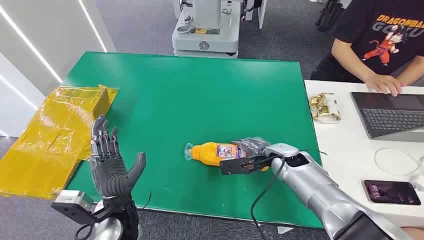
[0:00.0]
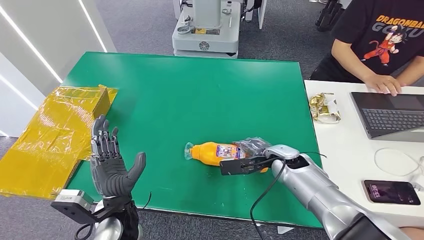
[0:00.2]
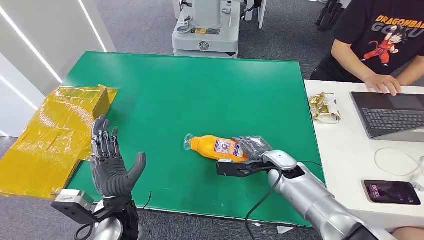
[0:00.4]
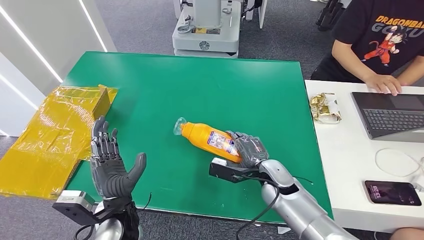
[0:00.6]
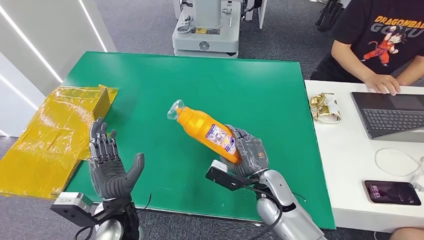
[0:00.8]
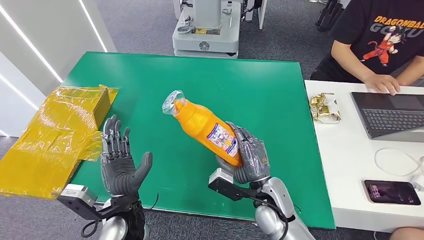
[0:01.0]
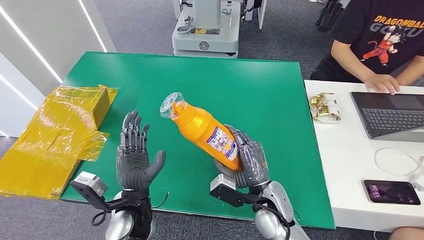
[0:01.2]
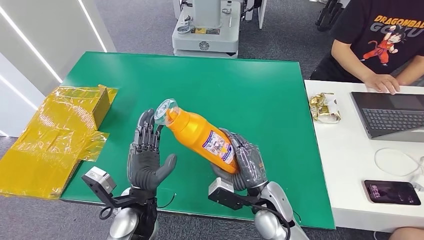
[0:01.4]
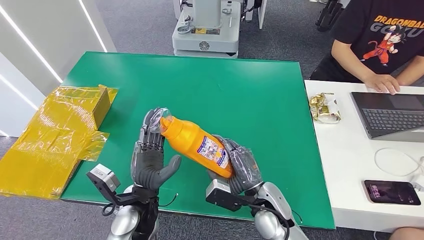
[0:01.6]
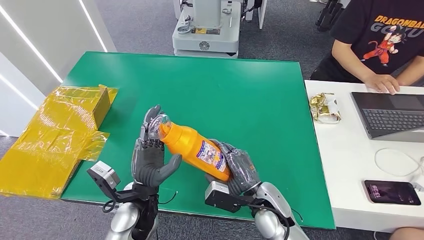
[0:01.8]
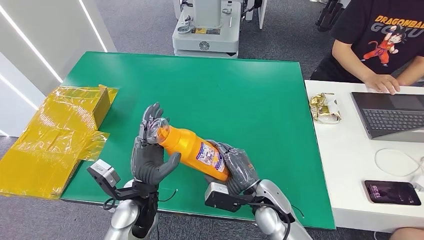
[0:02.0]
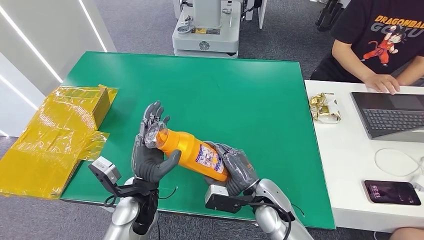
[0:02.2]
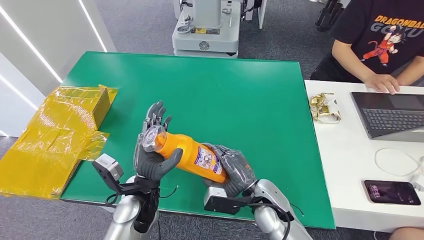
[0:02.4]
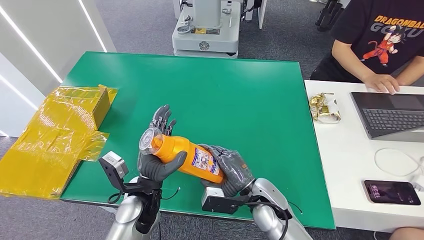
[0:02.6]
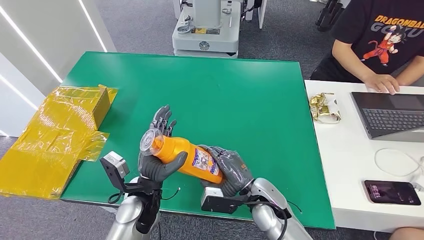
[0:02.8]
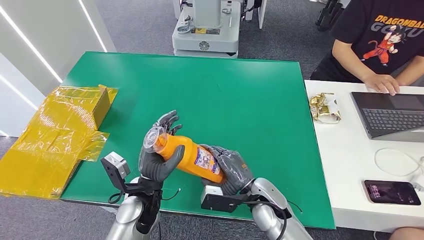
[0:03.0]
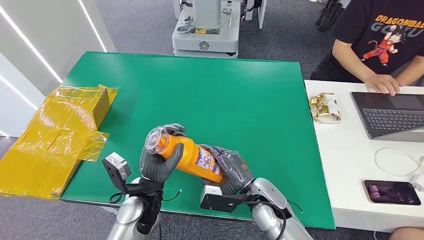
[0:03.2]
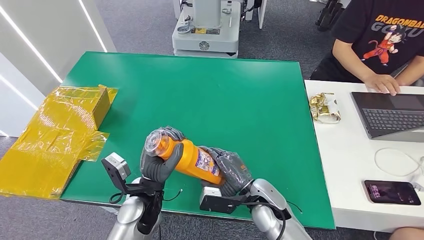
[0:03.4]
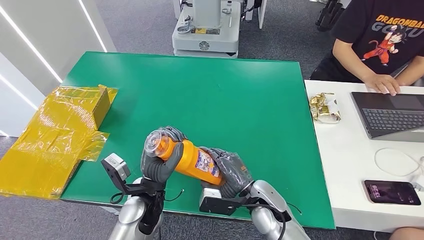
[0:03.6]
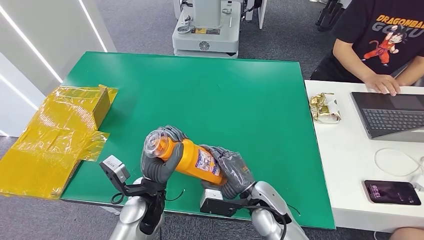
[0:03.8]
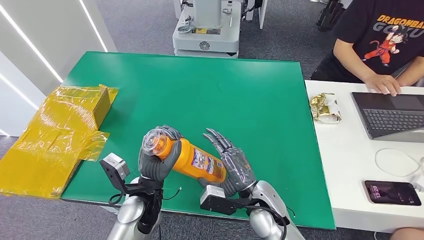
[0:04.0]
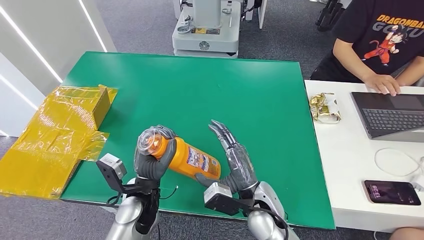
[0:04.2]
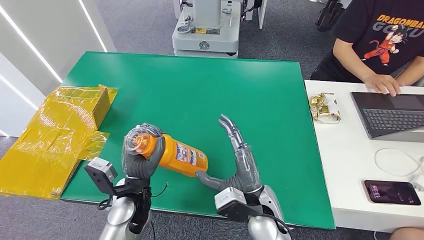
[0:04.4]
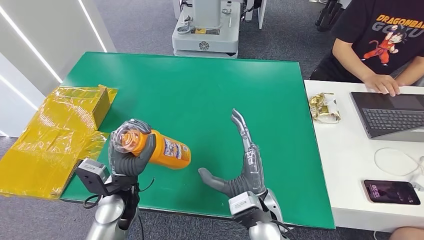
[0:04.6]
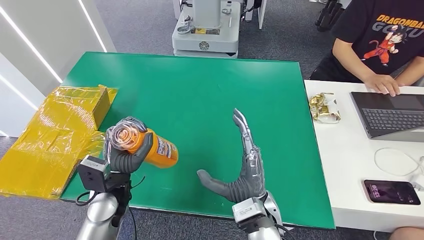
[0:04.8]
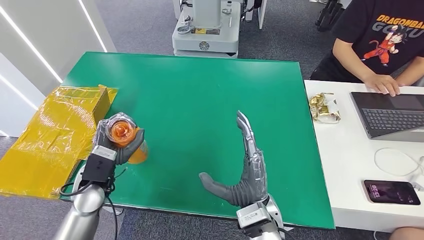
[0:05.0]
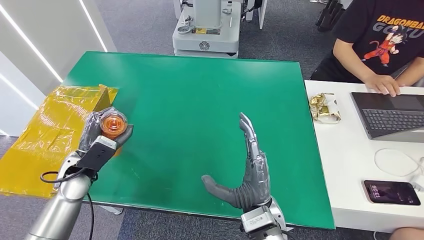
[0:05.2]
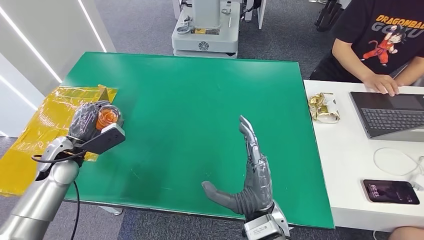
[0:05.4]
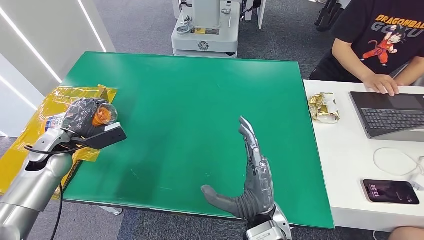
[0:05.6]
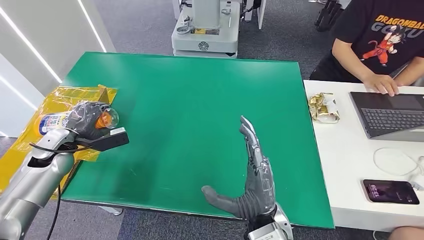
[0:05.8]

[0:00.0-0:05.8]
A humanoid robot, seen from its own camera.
Step, 0:00.0 to 0:02.8: Pick up the bottle from the table.
Step, 0:03.0 to 0:05.6: Turn the bottle to the front side.
0:02.8 to 0:04.4: The right hand moves about 5 cm.
0:04.4 to 0:05.8: The left hand shifts approximately 25 cm to the left; the right hand ends up about 5 cm from where it was.

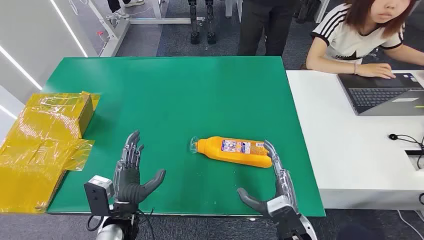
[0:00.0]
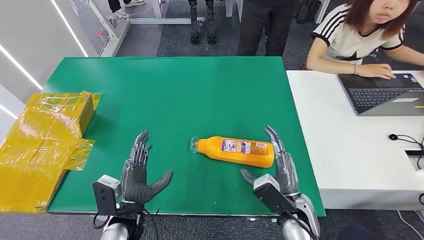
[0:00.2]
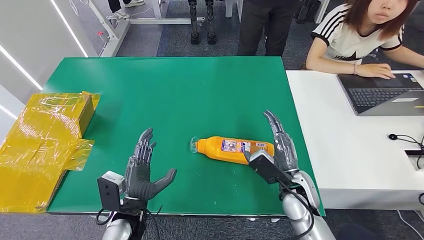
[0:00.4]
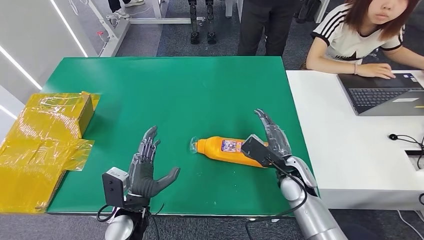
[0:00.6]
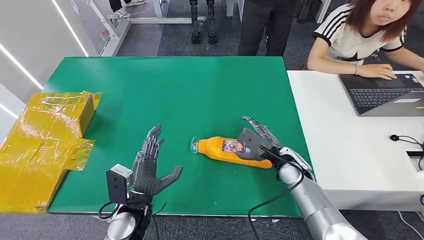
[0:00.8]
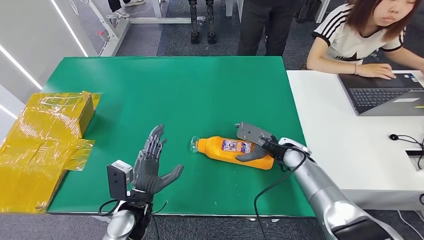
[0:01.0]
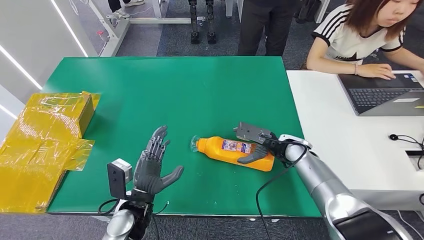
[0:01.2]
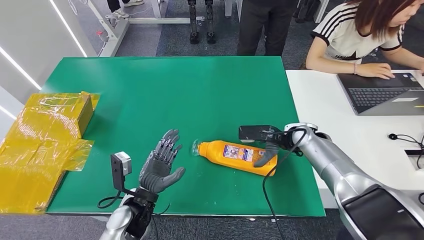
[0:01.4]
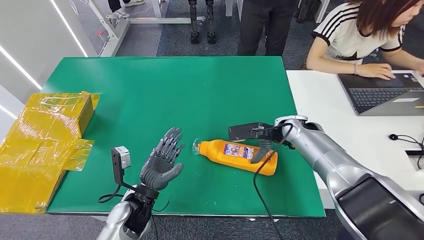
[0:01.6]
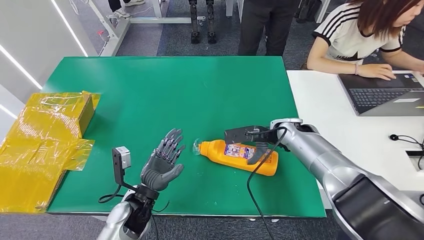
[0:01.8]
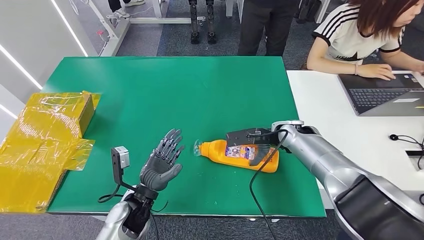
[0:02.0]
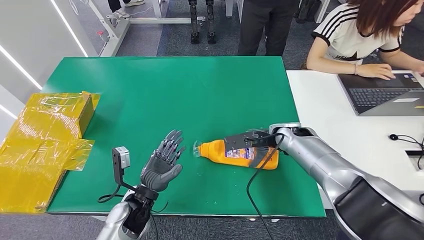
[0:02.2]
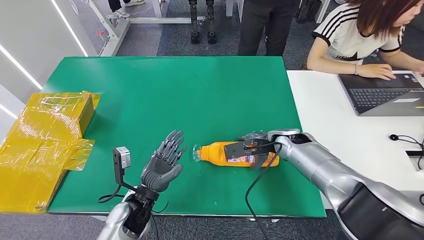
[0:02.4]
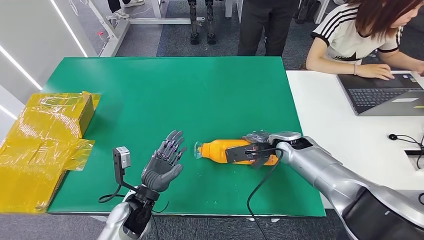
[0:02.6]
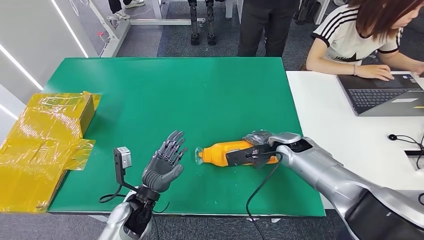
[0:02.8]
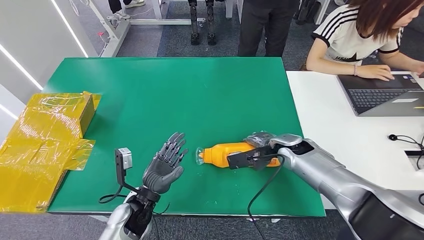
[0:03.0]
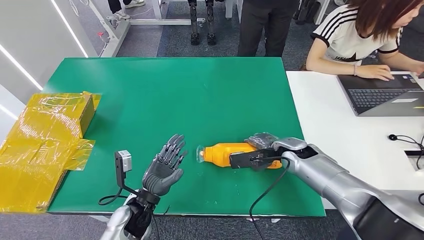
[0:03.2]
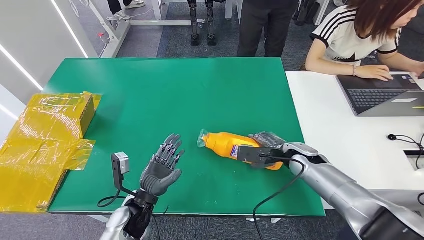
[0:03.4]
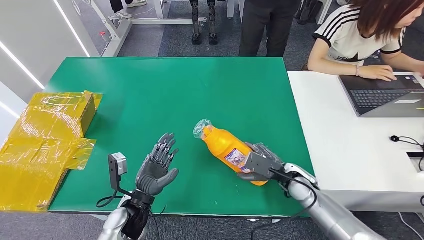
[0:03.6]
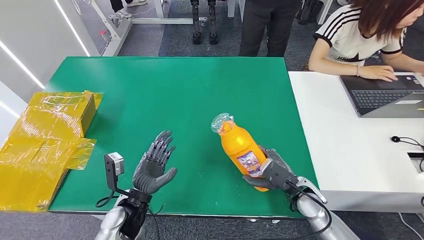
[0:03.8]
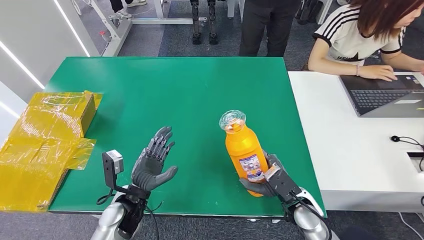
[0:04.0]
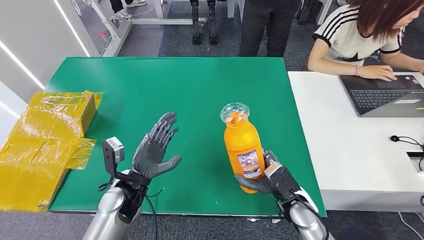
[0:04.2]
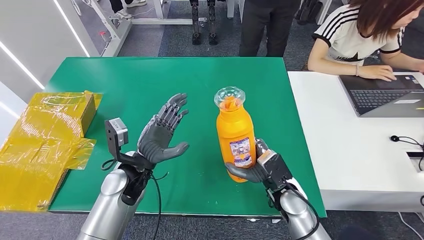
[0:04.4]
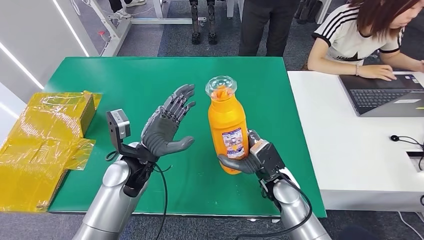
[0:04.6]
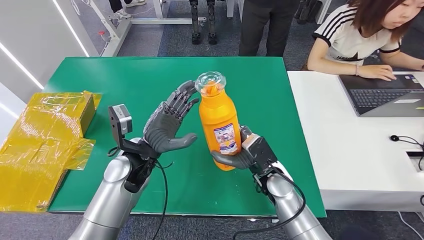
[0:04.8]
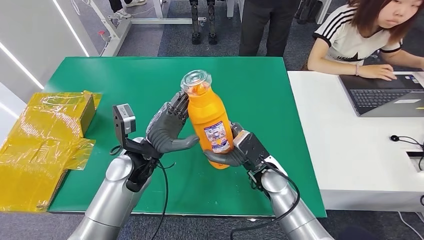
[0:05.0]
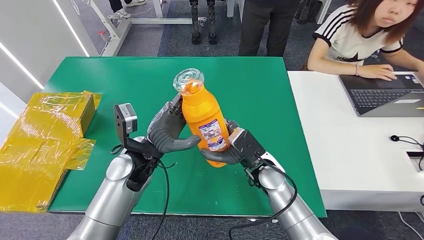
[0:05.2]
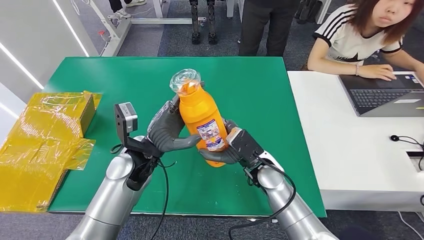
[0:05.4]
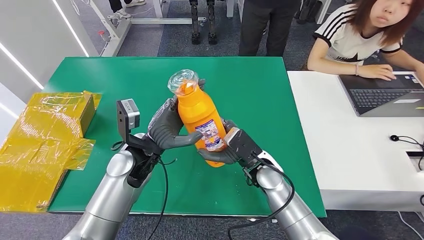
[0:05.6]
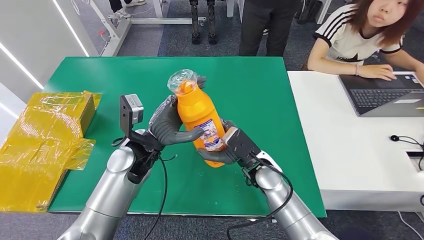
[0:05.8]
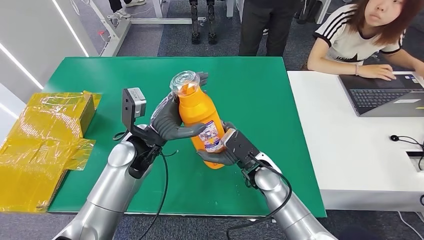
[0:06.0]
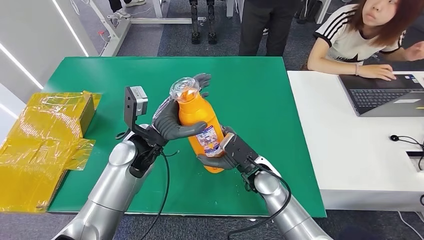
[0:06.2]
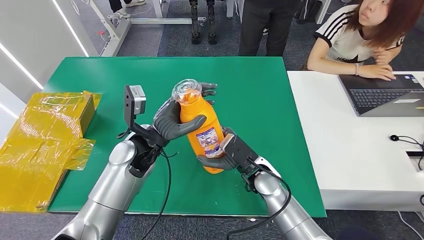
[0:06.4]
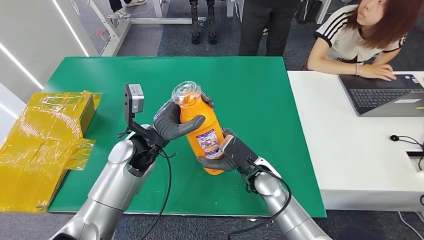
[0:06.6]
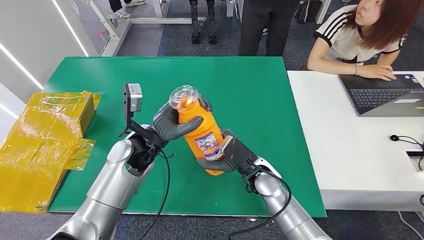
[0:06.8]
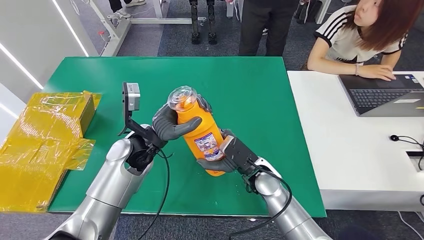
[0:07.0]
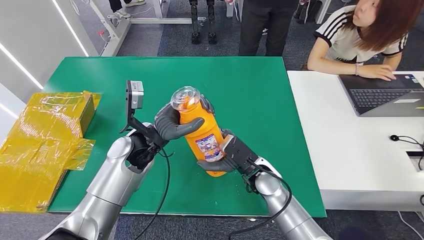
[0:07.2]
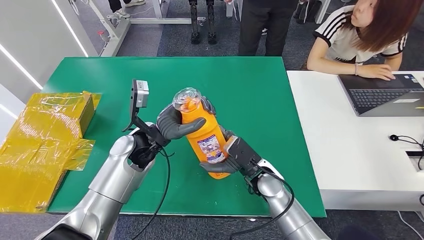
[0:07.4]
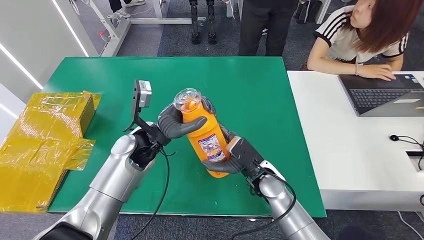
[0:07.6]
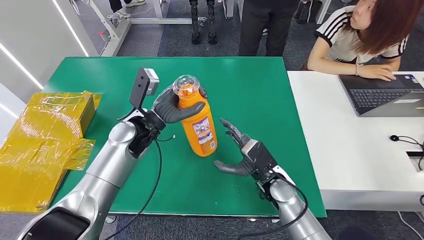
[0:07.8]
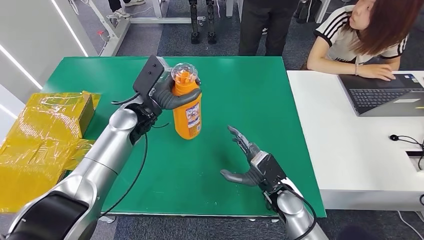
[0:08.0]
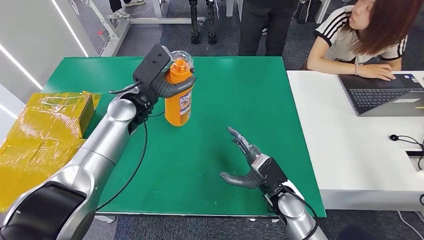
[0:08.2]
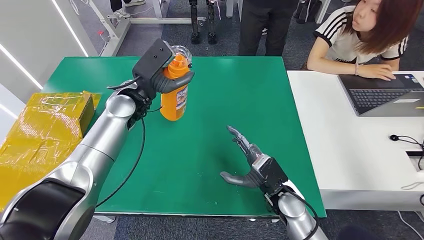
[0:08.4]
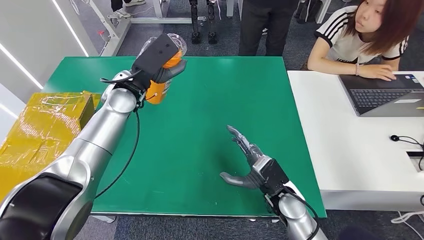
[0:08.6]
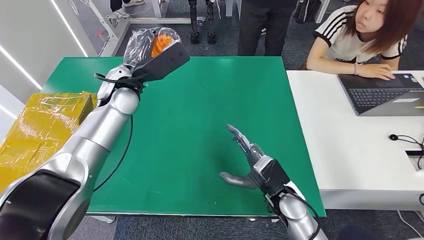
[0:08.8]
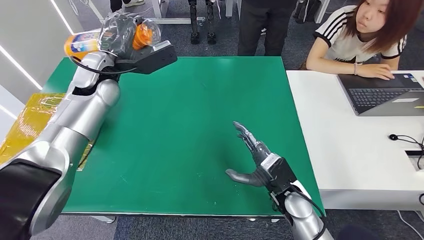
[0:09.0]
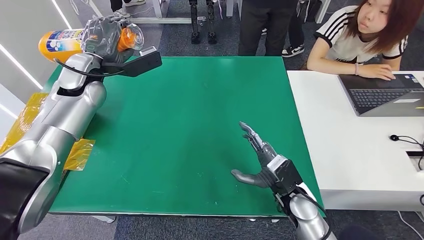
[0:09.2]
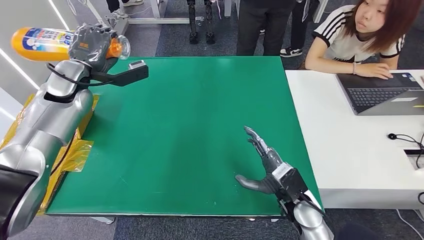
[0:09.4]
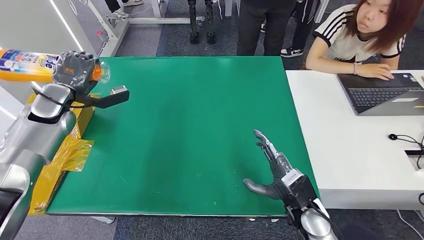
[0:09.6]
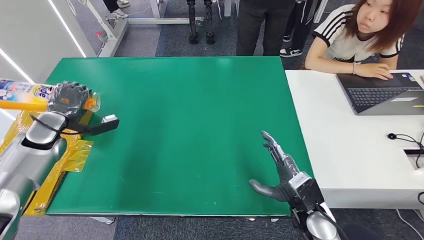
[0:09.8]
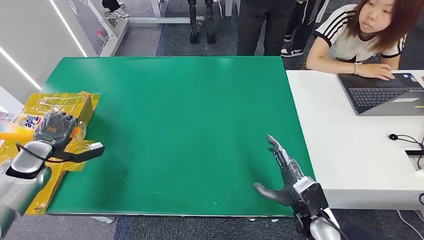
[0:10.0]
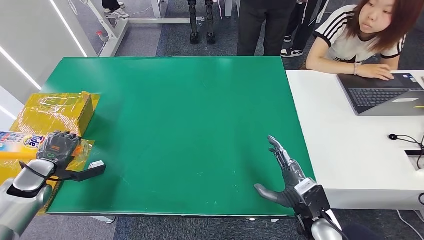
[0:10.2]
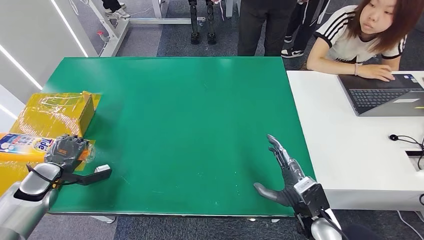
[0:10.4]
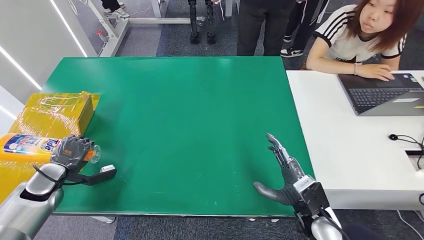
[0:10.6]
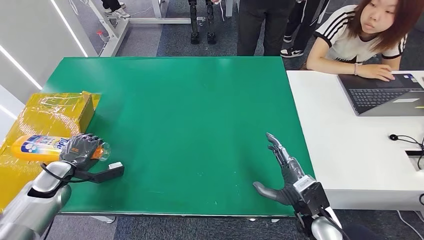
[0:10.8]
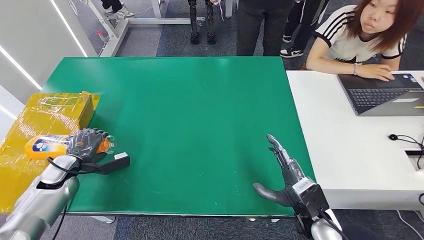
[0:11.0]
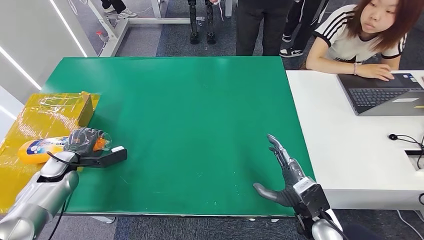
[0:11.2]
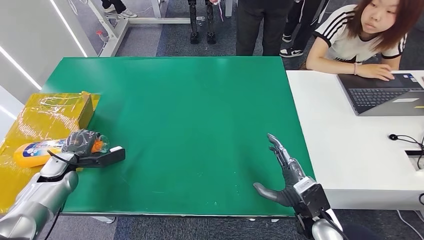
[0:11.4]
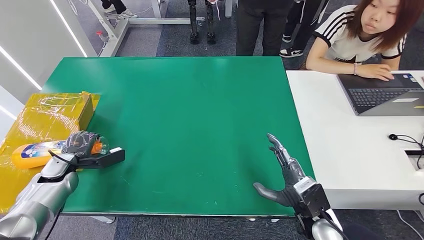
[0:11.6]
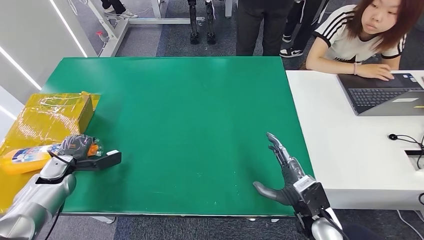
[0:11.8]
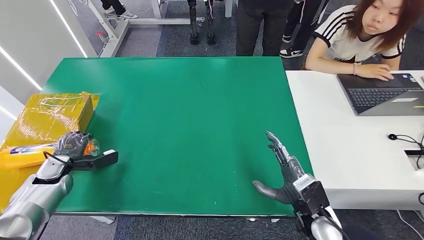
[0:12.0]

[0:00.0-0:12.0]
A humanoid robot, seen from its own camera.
Step, 0:00.0 to 0:04.0: Pick up the bottle from the table.
0:01.6 to 0:03.0: The right hand moves downward, some 5 cm.
0:06.0 to 0:07.6: The hands stay close to where they were, moving slightly.
0:10.4 to 0:12.0: The hands stay close to where they were, moving slightly.
